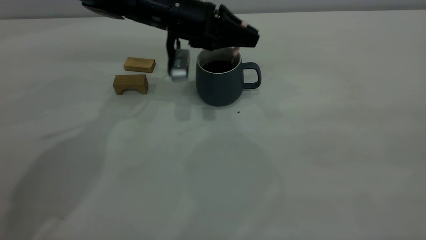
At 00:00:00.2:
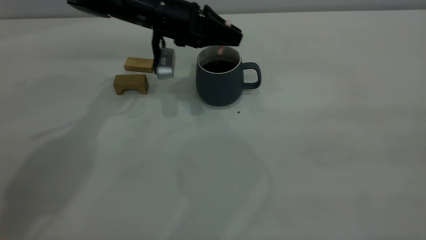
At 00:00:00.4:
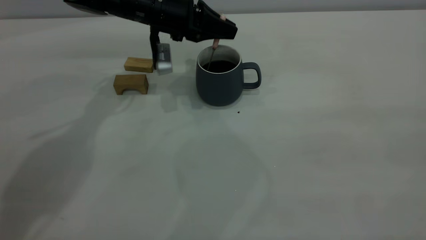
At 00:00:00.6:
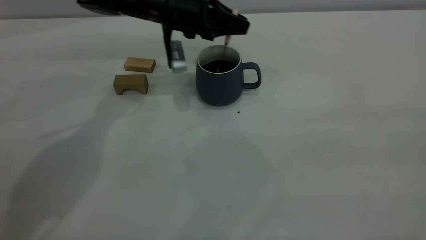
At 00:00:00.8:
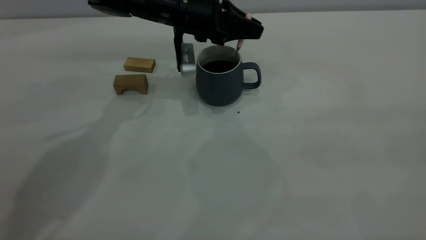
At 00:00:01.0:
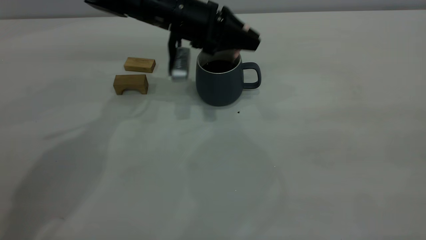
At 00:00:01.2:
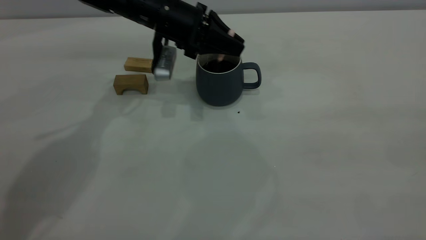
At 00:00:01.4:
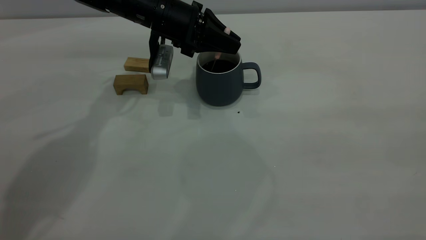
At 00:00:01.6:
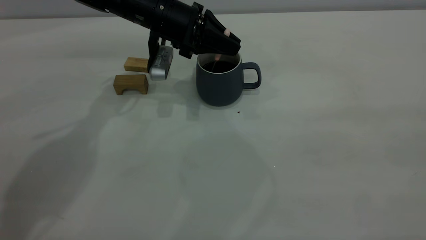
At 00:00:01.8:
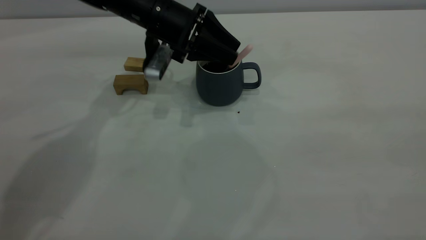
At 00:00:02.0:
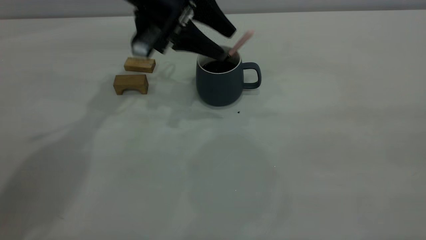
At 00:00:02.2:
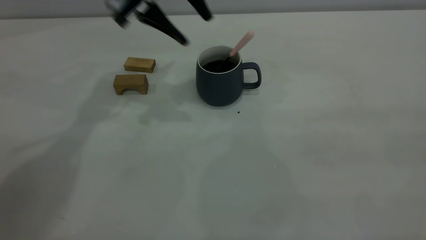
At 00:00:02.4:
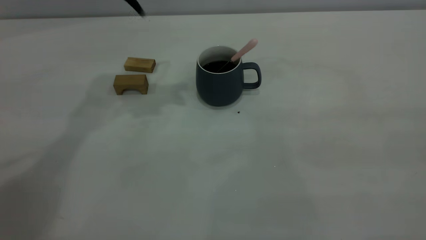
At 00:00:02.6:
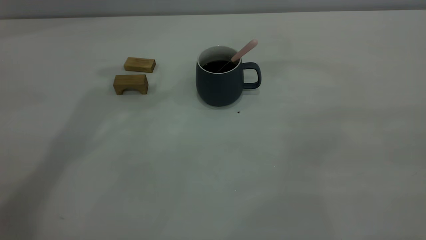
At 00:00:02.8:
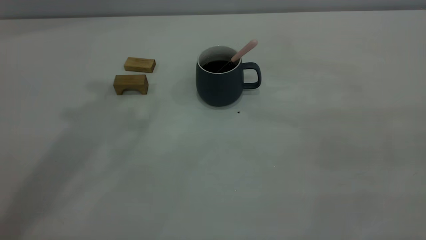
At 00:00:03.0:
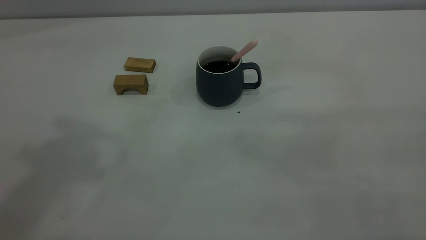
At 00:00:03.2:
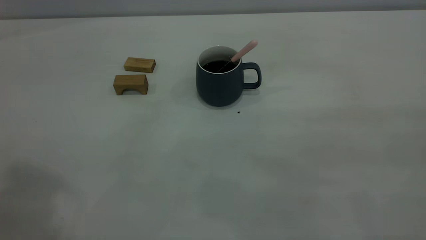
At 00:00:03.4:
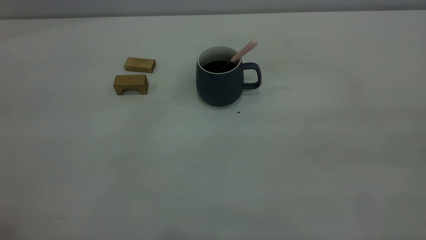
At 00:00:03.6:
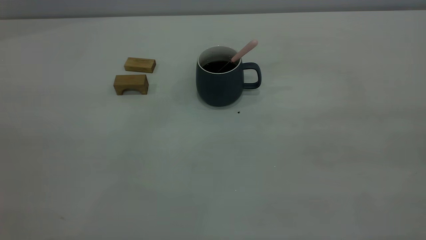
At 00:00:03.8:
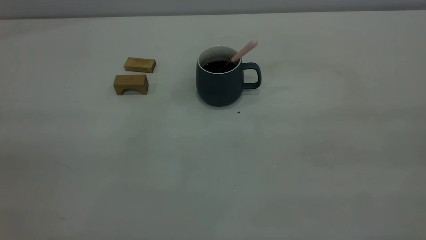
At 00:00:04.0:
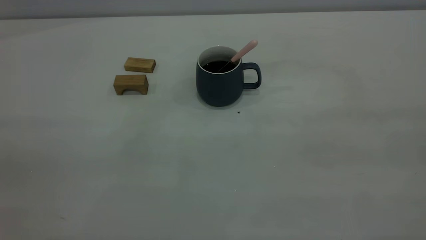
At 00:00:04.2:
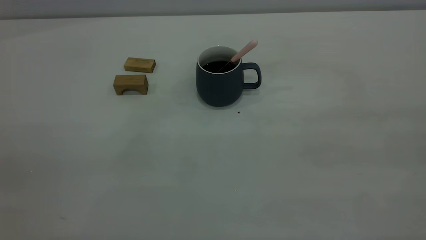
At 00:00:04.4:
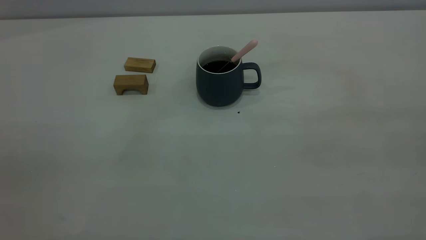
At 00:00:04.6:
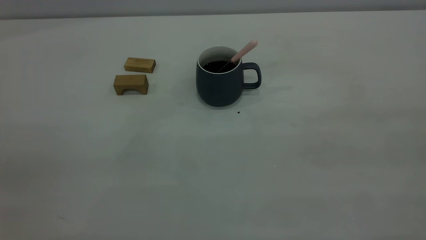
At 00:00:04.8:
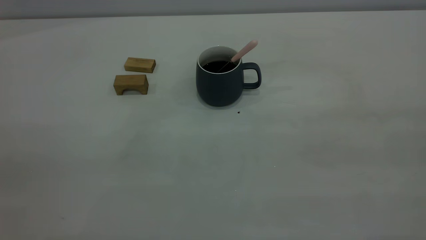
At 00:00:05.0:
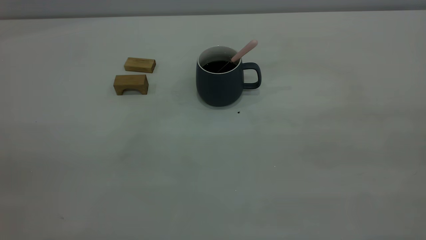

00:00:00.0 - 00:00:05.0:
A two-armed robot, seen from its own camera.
Step, 00:00:00.0 - 00:00:02.0: Stir the coffee in the cup.
00:00:00.0 - 00:00:01.6: There are only small adjustments of the grippers.
00:00:01.6 - 00:00:03.4: The left gripper moves backward, upward and to the left, roughly 50 cm, and opens up.
